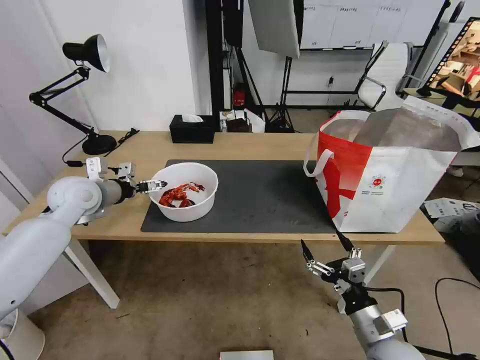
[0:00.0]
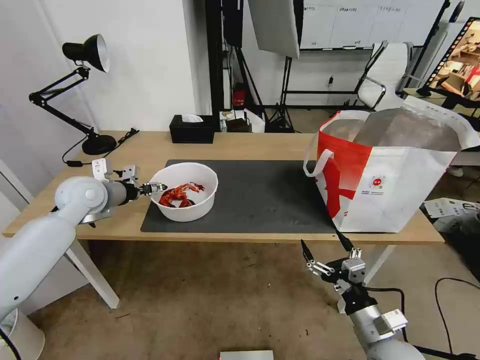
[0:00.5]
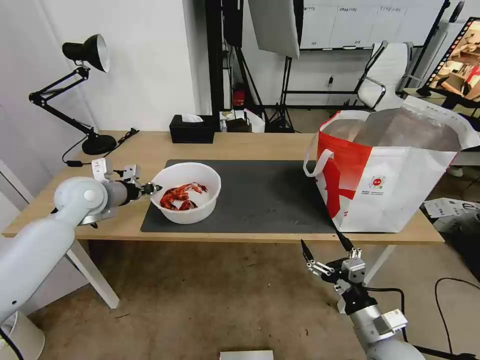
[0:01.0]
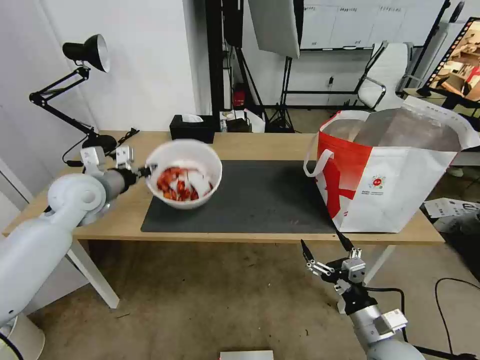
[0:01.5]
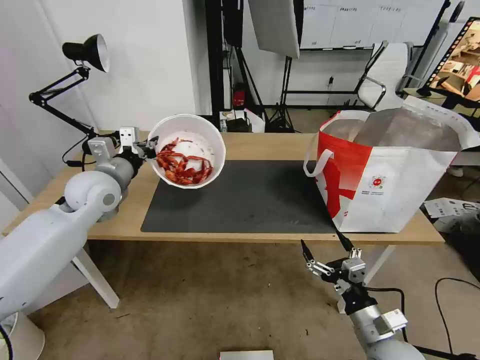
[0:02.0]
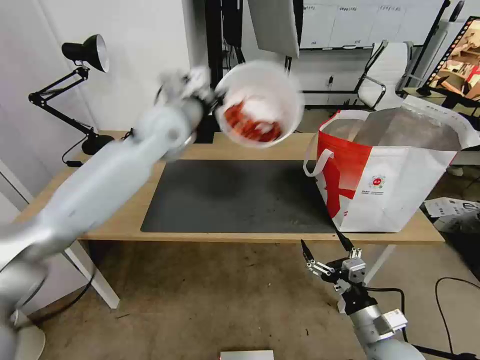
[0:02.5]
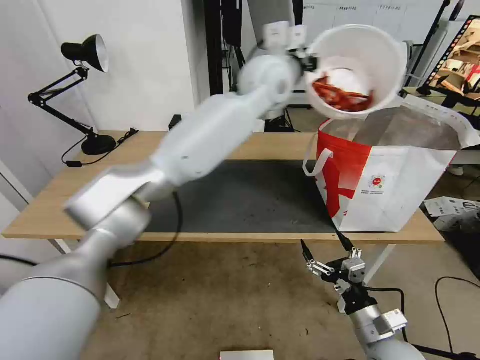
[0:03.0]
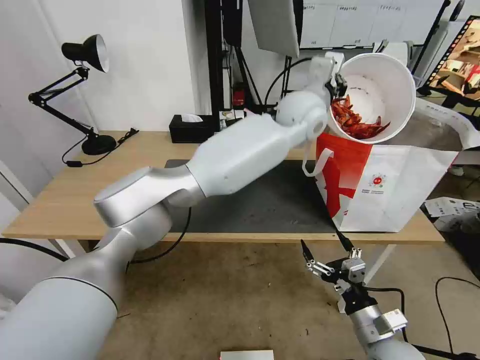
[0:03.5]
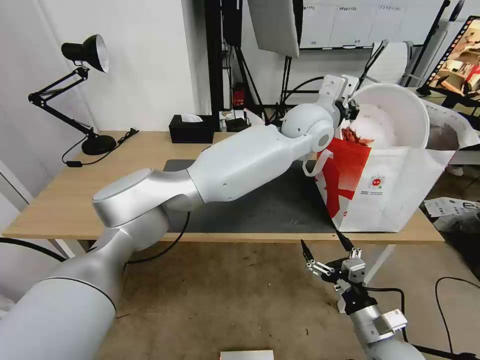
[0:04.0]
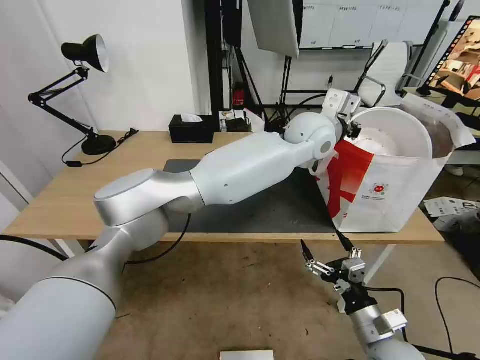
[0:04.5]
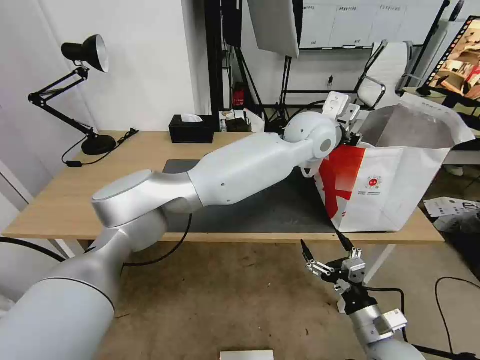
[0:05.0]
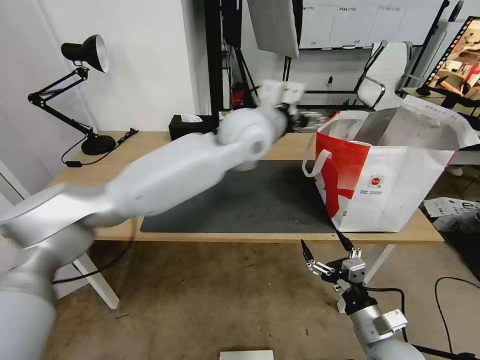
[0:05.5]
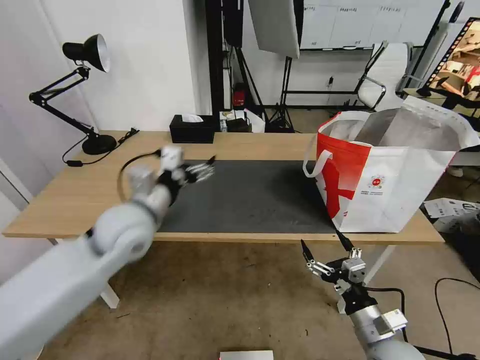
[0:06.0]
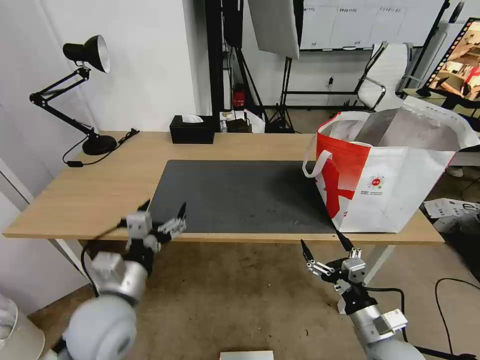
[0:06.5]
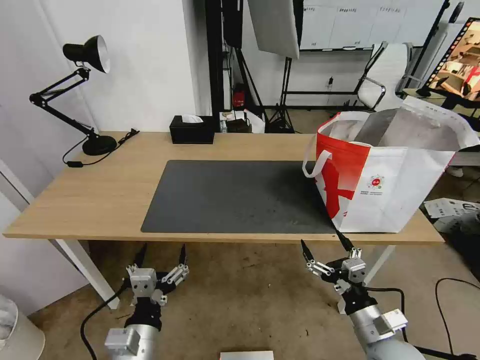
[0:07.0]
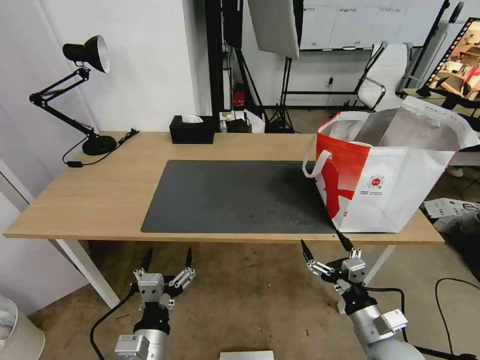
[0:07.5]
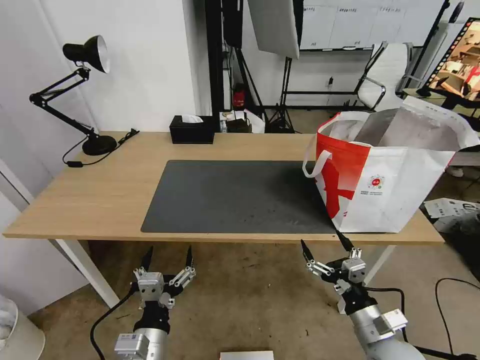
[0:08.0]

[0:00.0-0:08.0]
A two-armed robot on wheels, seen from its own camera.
Task of the whole recording: Pick up the trash from the table and place it into the takeout bag.
0:00.0 to 0:02.0: The left gripper is displaced to the right by about 5 cm, and closes.
0:02.0 to 0:04.0: The left gripper travels to the right by about 40 cm.
0:04.0 to 0:06.0: The left gripper moves to the left and backward, some 35 cm, and opens up.
0:06.0 to 0:08.0: The left gripper heads backward and downward, covering some 30 cm.

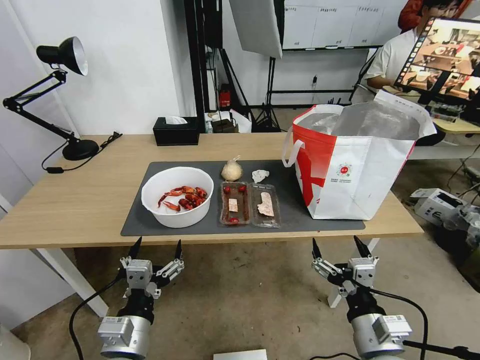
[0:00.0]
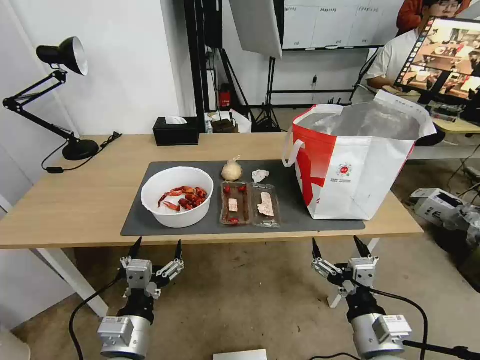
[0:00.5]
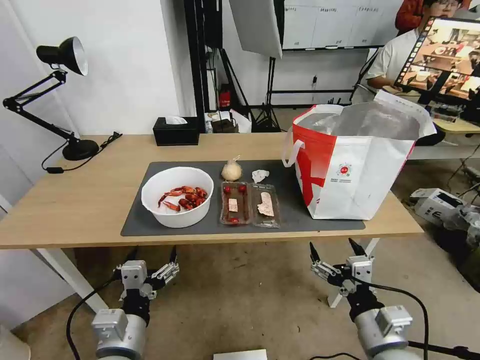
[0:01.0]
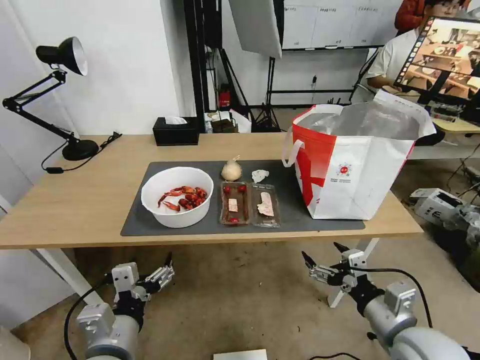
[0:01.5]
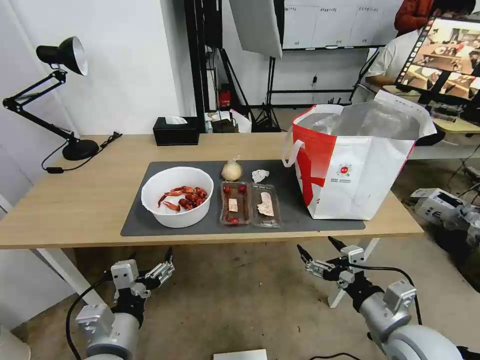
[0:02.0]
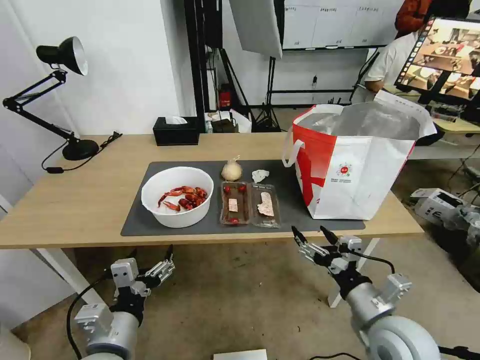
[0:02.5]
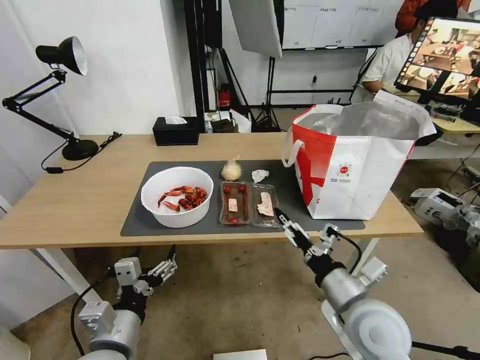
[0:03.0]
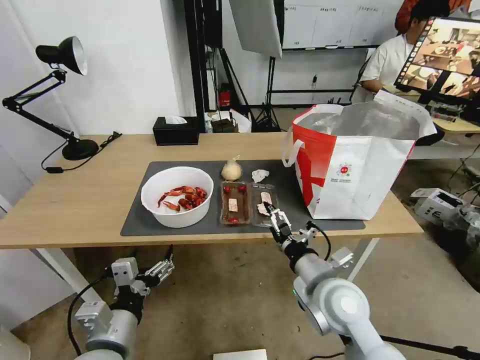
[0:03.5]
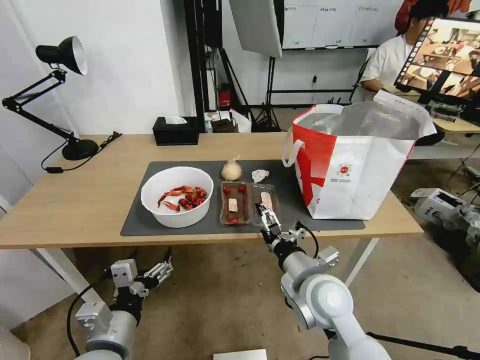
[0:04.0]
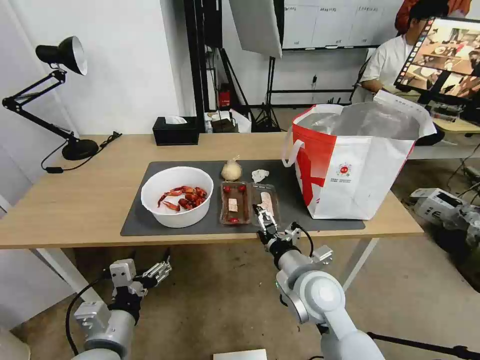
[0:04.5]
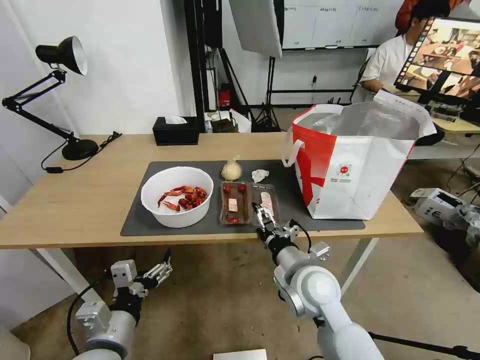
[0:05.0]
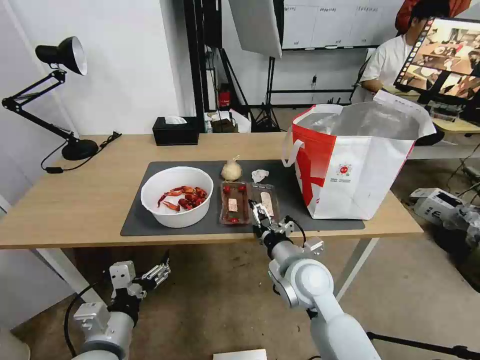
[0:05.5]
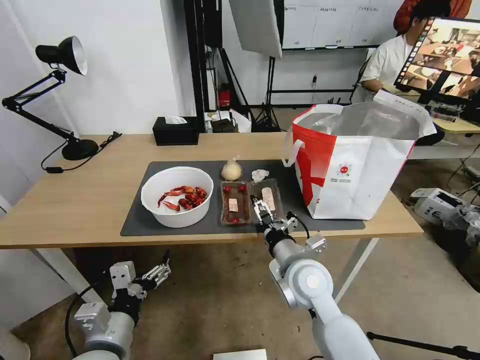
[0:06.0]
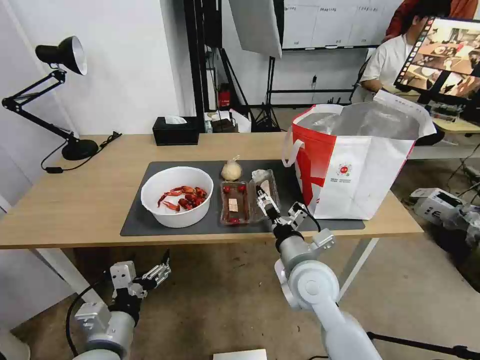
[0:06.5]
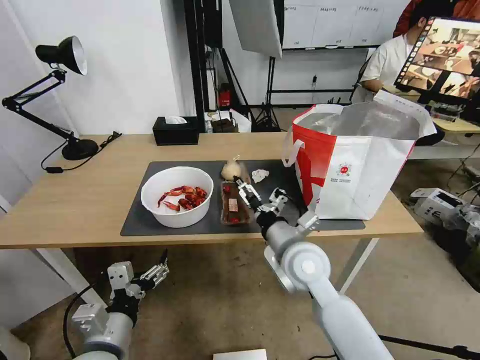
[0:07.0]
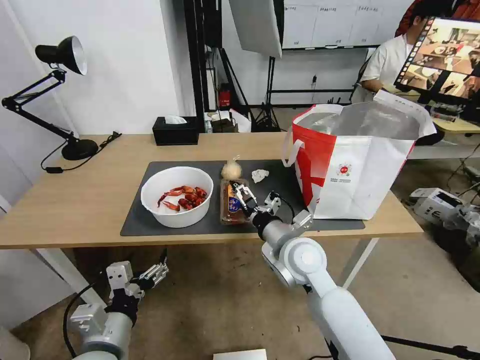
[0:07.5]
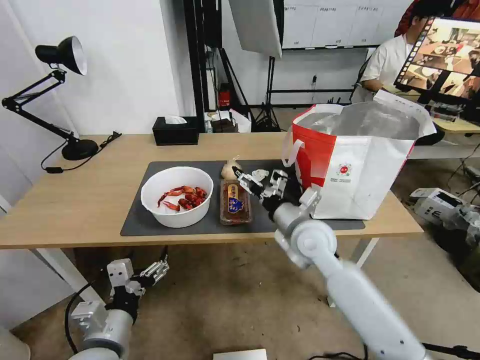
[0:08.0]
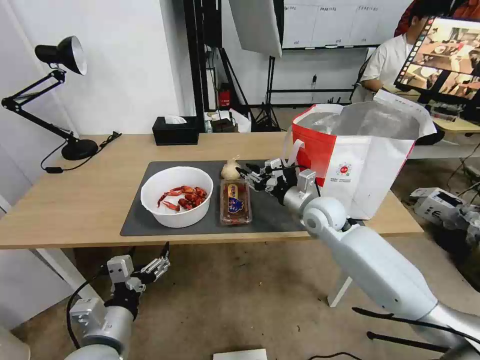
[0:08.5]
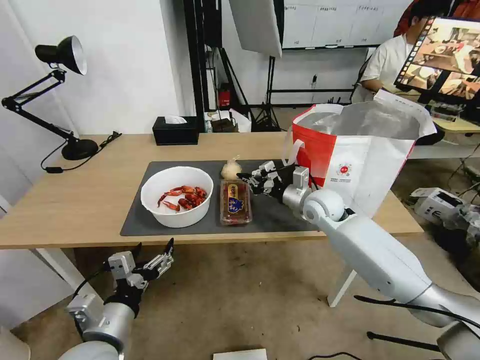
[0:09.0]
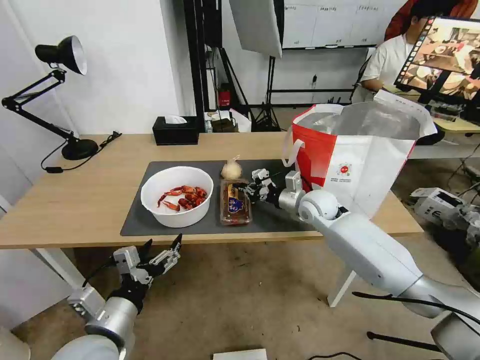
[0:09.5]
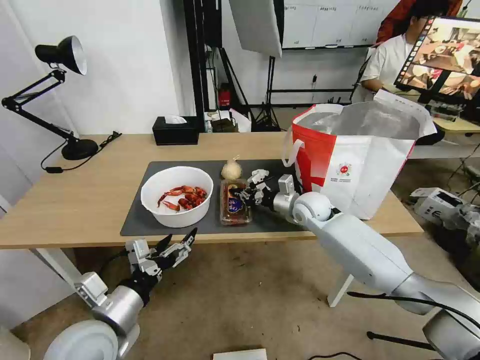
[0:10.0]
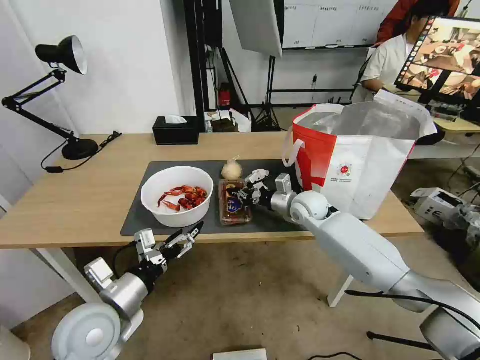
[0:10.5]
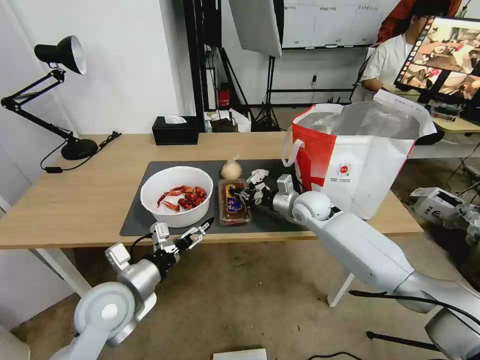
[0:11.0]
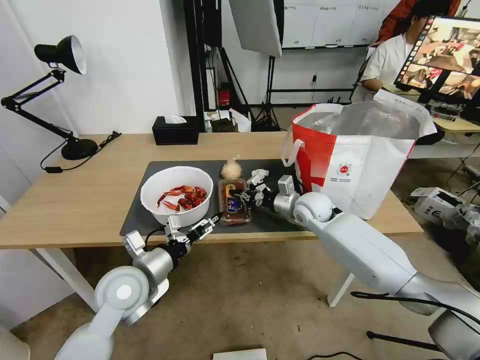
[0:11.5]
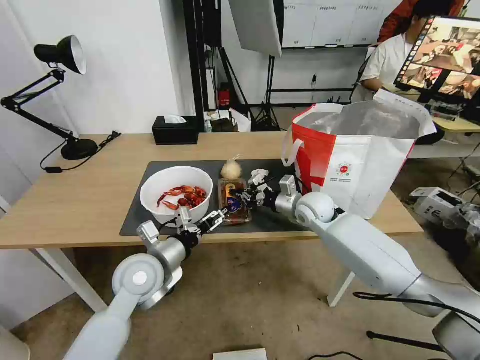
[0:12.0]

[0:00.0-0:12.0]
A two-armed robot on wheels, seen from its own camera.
Task of the whole recording: Pick up the trash from the table and place it into the takeout bag.
0:02.0 to 0:04.0: The right gripper heads to the left and forward, covering some 15 cm.
0:04.0 to 0:06.0: The grippers move only a little.
0:06.0 to 0:08.0: The right gripper shifts about 5 cm forward.
0:08.0 to 0:10.0: The right gripper goes approximately 15 cm forward, and closes up. The left gripper ends up about 5 cm from where it was.
0:10.0 to 0:12.0: The left gripper travels forward by about 15 cm.

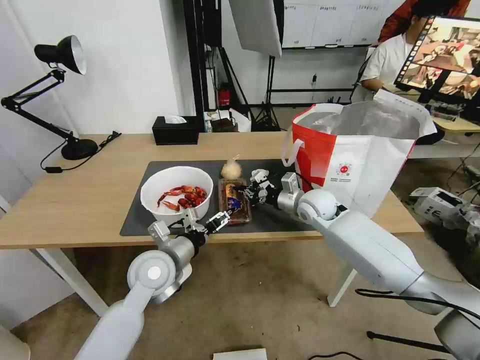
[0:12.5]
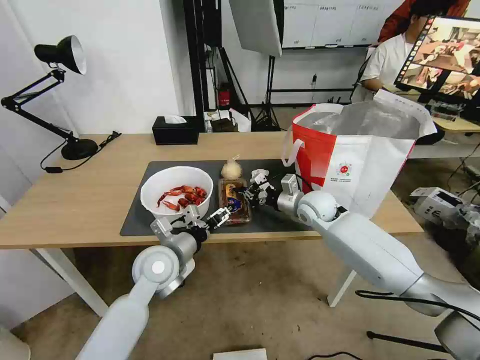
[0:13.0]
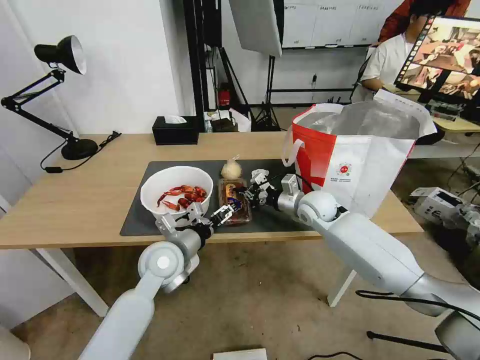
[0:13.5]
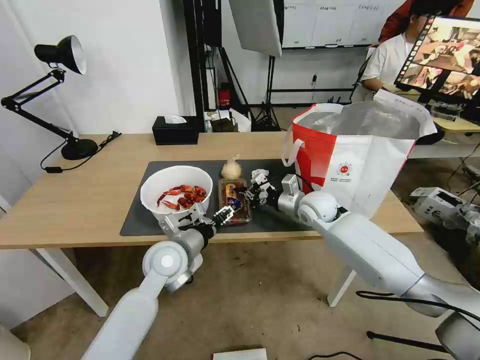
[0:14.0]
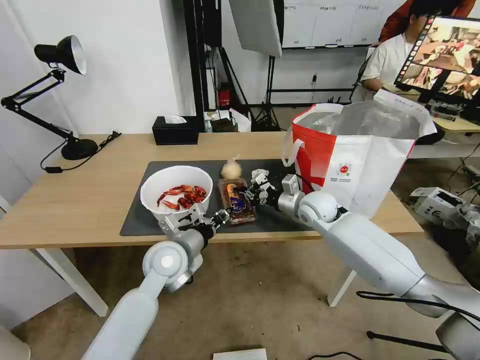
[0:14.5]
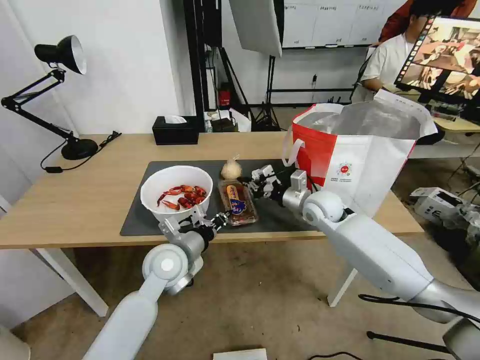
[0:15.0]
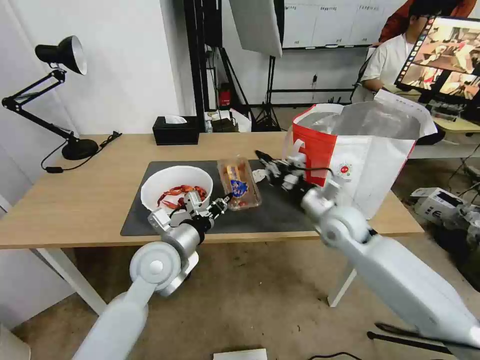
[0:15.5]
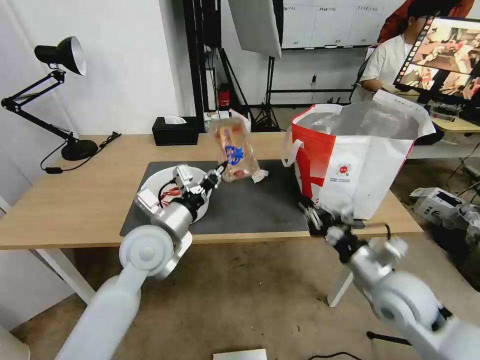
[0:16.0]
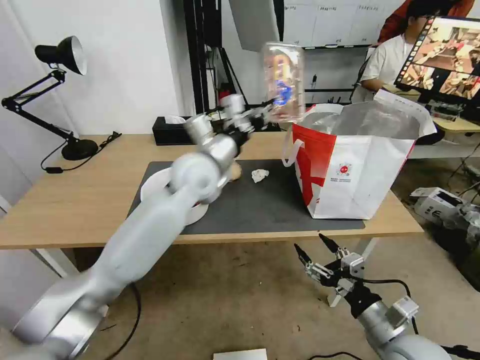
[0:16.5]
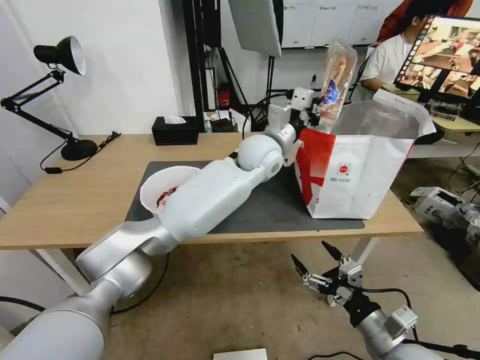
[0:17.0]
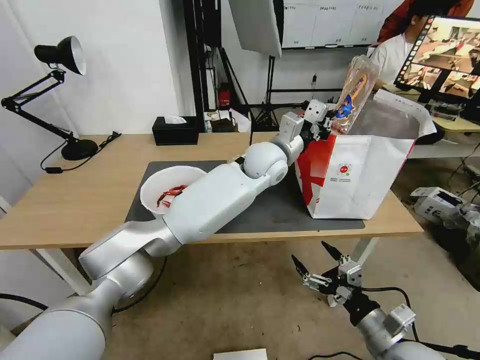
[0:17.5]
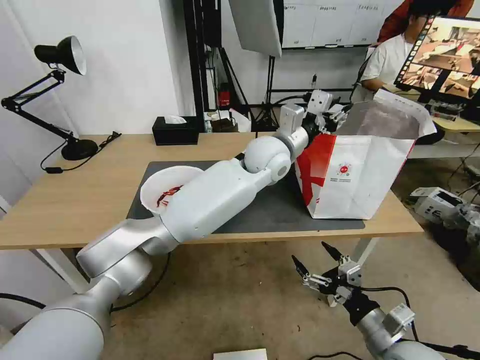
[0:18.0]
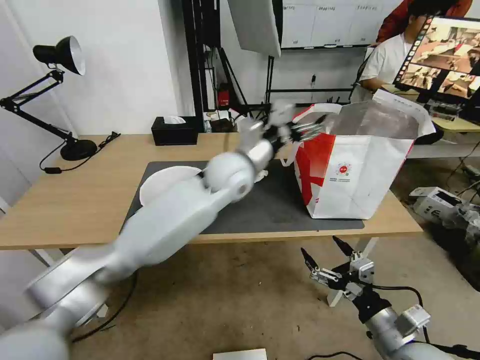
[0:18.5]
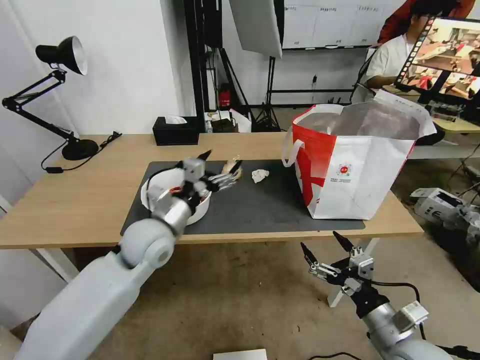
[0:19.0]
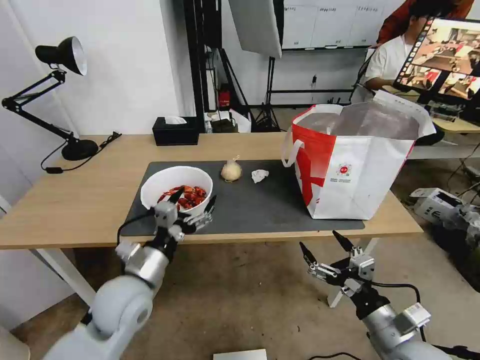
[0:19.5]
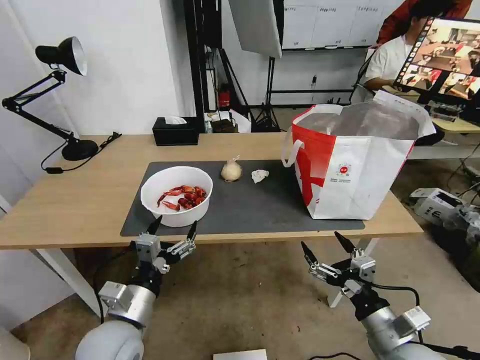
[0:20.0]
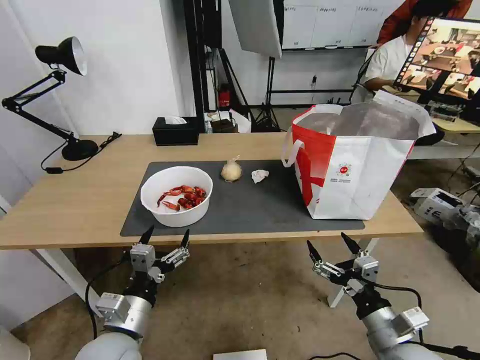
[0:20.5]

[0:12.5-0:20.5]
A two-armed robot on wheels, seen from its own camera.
Task of the whole recording: Pick up the trash from the table and place it into the takeout bag.
0:12.5 to 0:14.5: The left gripper closes.
0:14.5 to 0:16.5: The left gripper goes roughly 20 cm upward and forward. Meanwhile the right gripper shifts roughly 35 cm backward, and opens up.
0:16.5 to 0:18.5: The left gripper heads to the right, covering about 10 cm, and opens up.
0:18.5 to 0:20.5: The left gripper is displaced backward, to the left and downward by approximately 40 cm.
